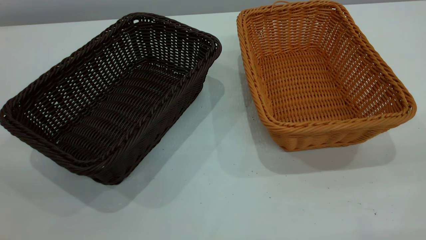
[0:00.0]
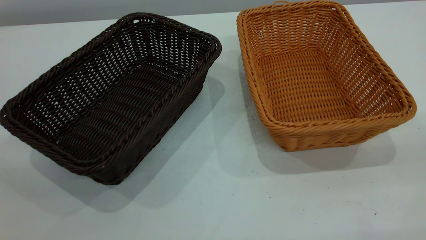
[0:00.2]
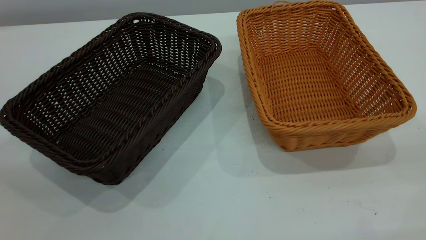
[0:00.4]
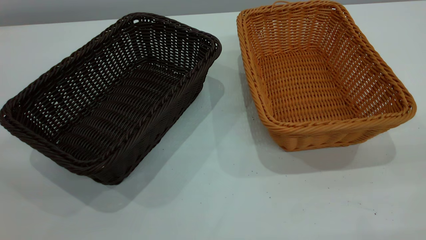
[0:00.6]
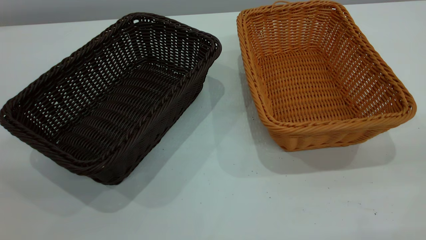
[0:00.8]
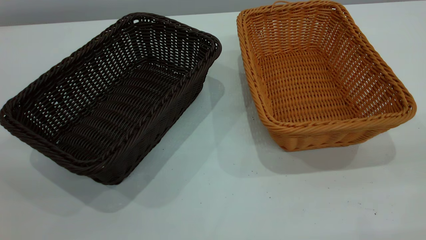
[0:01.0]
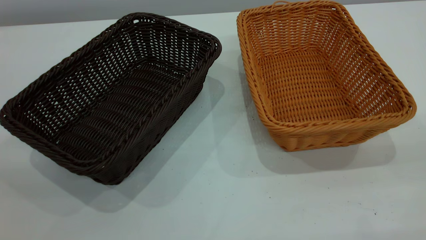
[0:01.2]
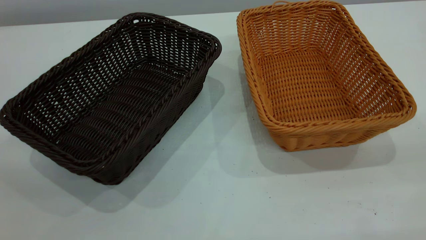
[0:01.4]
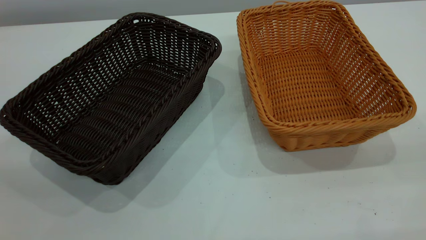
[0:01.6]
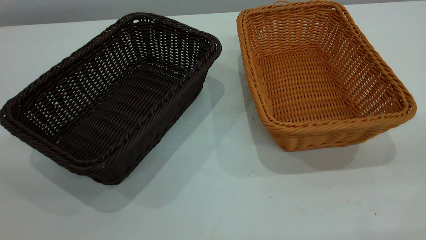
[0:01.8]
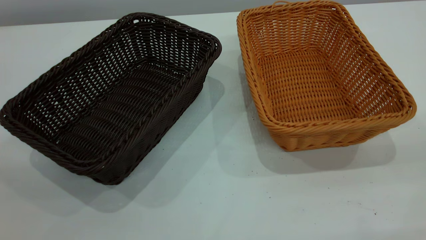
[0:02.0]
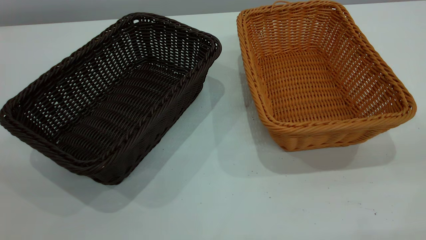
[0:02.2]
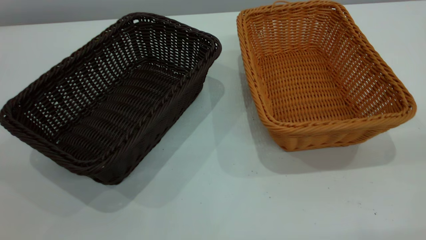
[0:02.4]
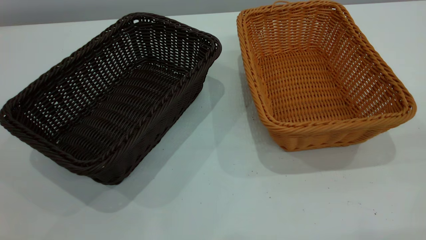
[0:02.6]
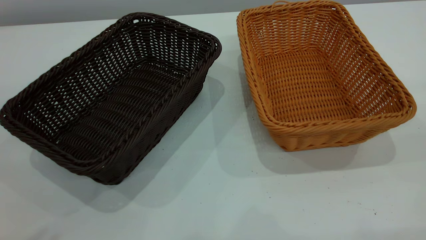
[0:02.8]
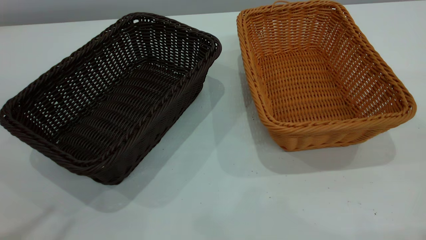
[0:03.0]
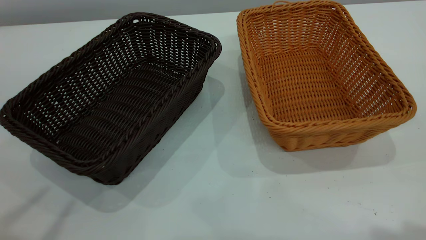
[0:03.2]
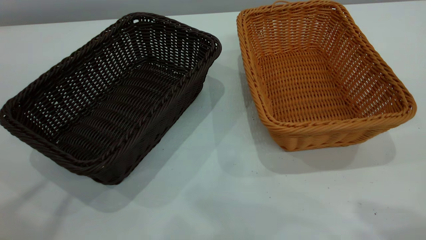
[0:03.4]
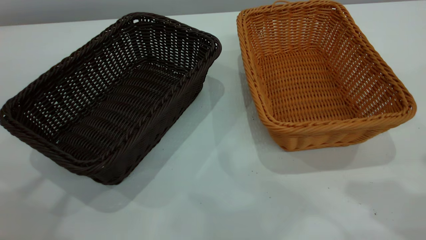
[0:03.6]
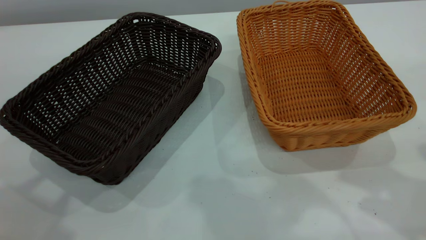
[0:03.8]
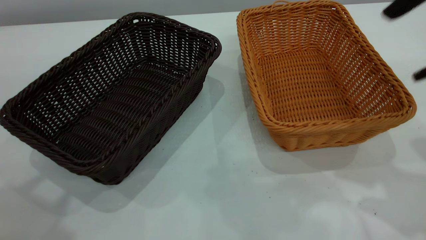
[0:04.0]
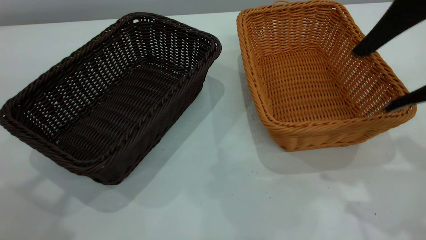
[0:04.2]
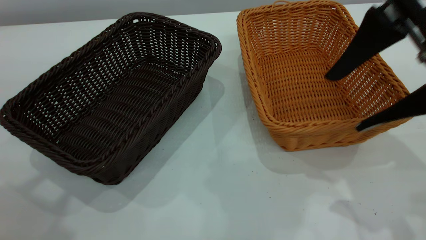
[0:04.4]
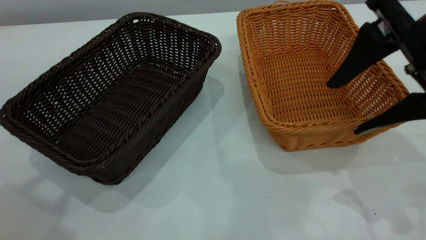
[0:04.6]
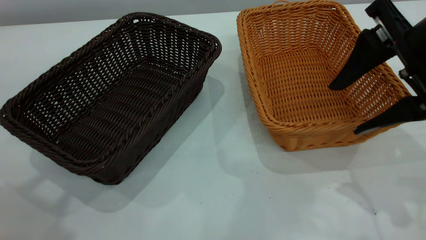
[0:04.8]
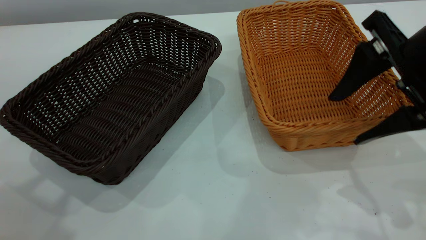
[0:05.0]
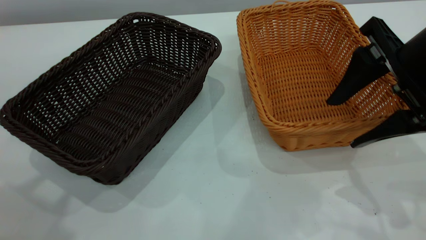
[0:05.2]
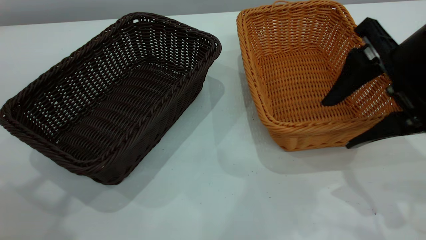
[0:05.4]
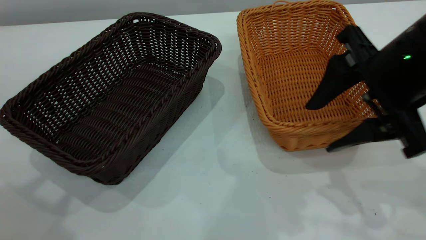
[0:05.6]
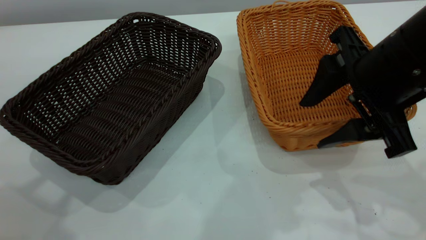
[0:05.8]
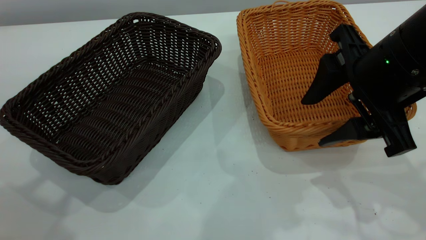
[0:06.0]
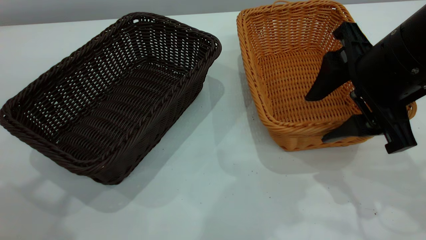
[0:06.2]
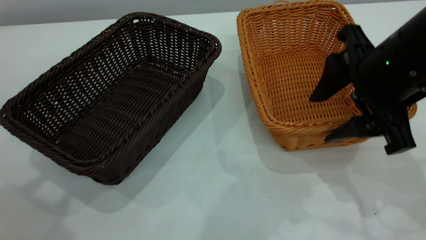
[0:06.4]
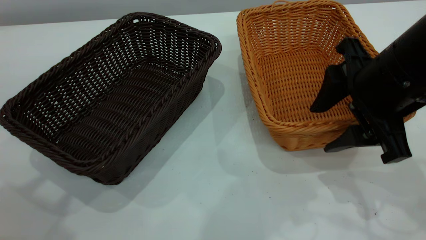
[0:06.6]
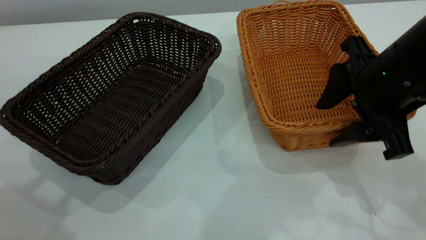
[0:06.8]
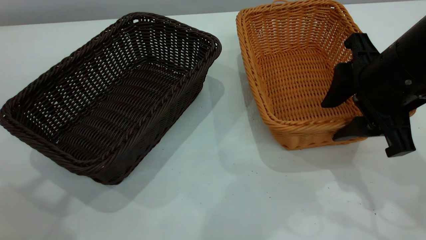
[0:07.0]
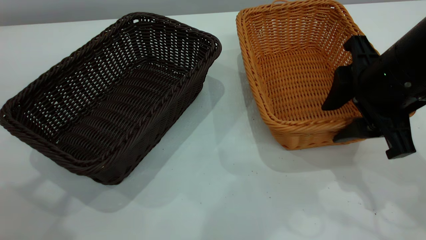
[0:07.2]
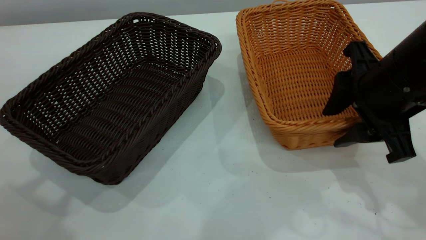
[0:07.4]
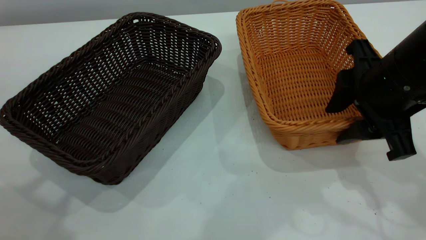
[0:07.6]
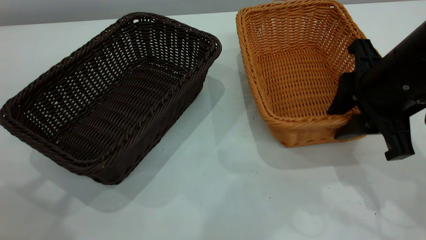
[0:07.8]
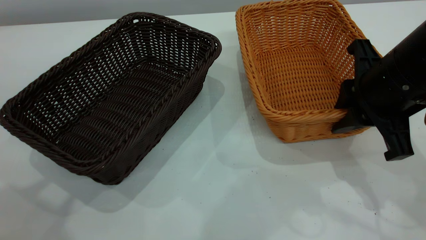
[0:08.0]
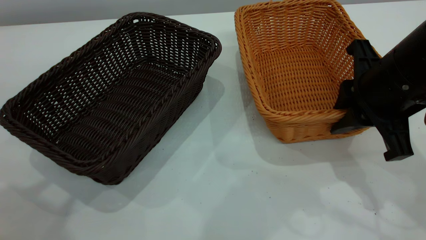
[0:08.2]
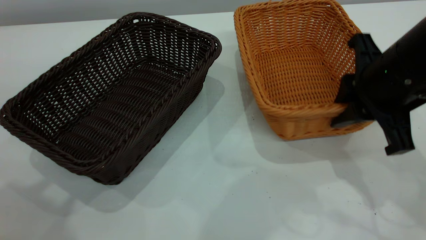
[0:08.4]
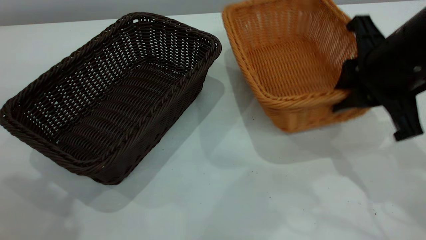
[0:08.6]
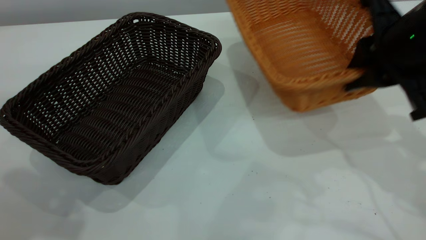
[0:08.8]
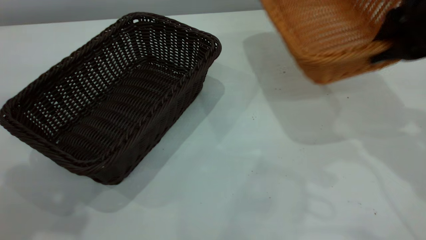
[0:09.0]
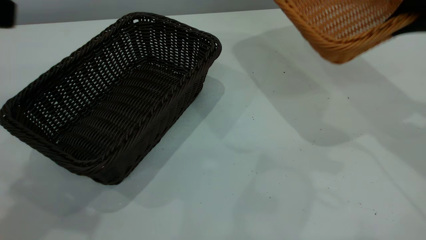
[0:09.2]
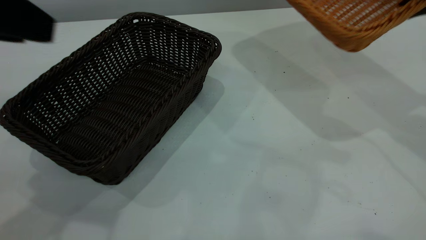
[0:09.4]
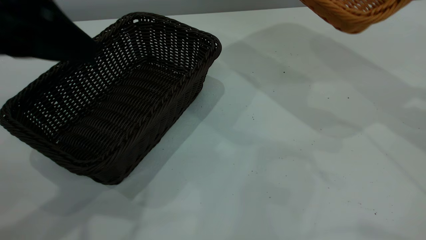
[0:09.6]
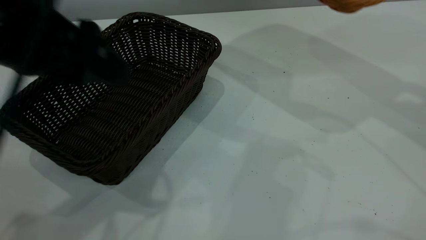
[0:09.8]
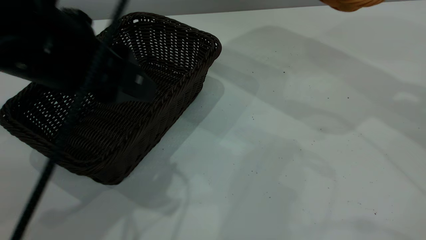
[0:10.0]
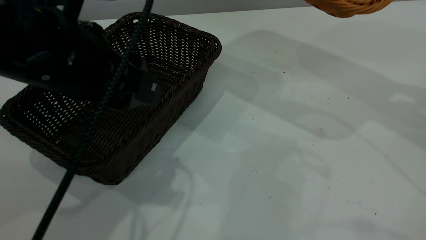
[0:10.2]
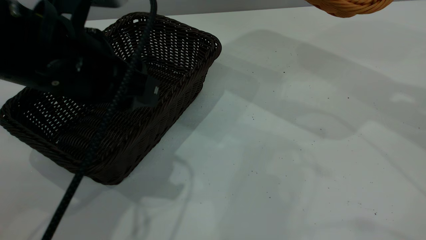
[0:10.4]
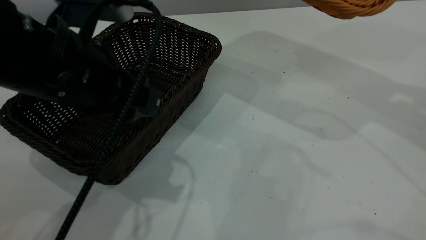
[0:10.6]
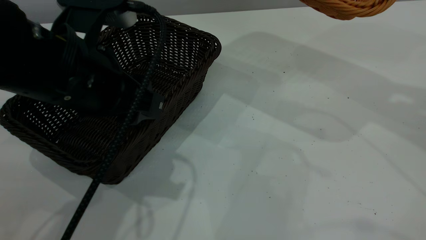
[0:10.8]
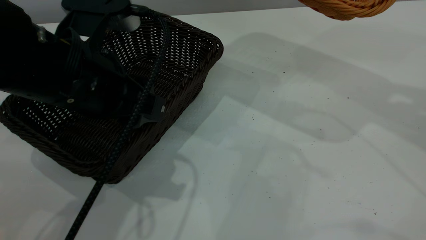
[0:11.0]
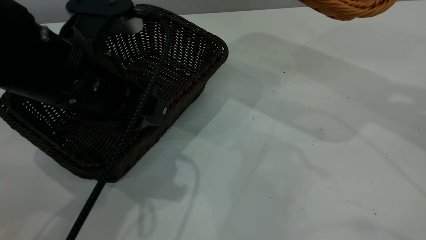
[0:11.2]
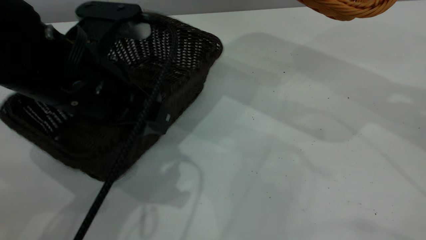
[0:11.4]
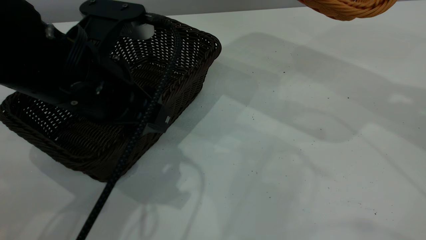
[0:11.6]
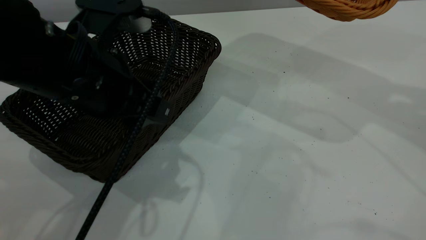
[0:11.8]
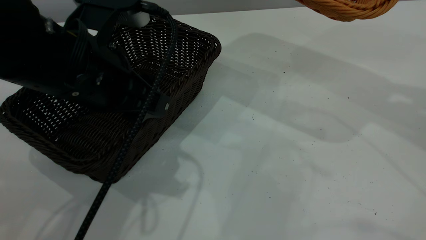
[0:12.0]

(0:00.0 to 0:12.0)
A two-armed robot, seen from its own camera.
Task of the whole recording: the left gripper grasp the black basket and place it in the center of the table, the right gripper grasp the brown basket and place it inside the black one.
Step, 0:00.0 - 0:08.6: Pick up the light basket with the right gripper.
0:00.0 - 0:01.6: Neither gripper changes place.
0:03.0 - 0:04.4: The right gripper heads forward and downward, covering approximately 20 cm.
0:04.4 - 0:06.0: The right gripper moves downward, approximately 5 cm.
0:06.0 - 0:07.6: The grippers make only small movements.
0:07.6 - 0:09.0: The left gripper heads downward, covering about 5 cm. Meanwhile the right gripper is displaced upward by some 5 cm, and closes.
0:09.0 - 0:10.4: The right gripper heads upward, covering some 10 cm. Meanwhile the left gripper goes some 20 cm downward, to the right and forward.
0:10.4 - 0:12.0: The grippers make only small movements.

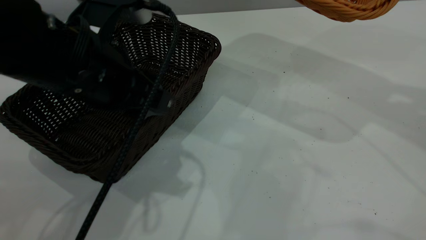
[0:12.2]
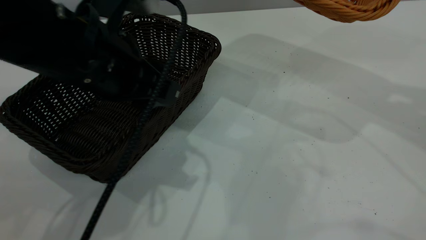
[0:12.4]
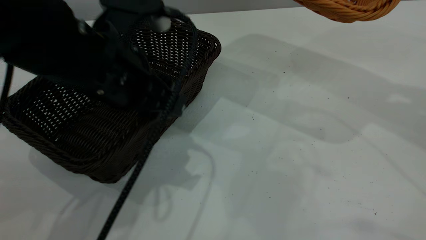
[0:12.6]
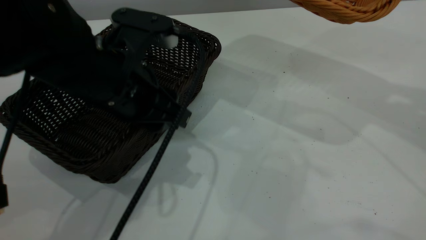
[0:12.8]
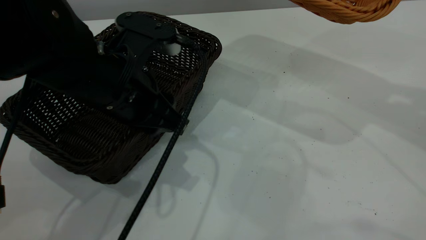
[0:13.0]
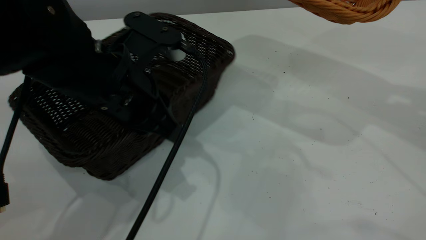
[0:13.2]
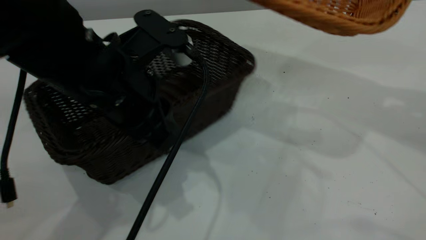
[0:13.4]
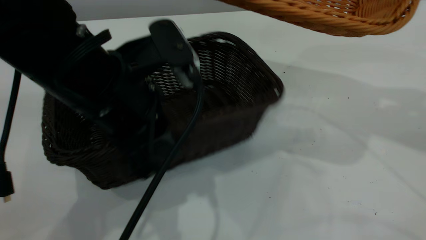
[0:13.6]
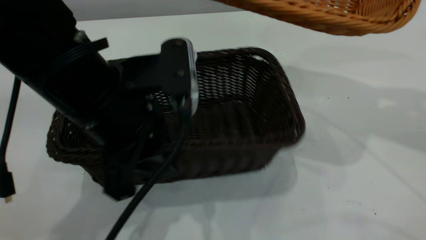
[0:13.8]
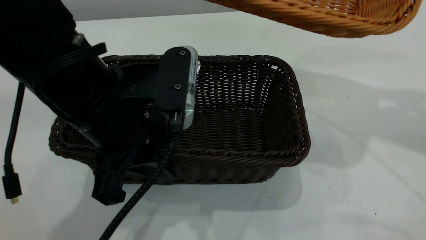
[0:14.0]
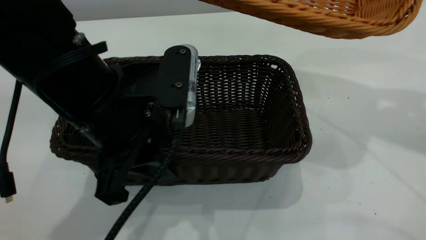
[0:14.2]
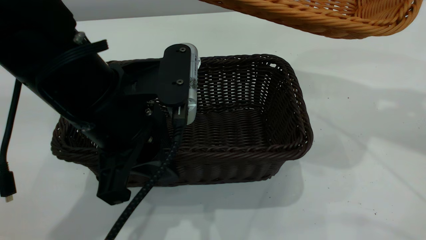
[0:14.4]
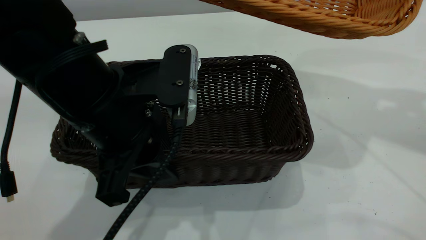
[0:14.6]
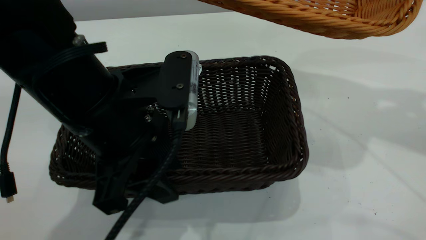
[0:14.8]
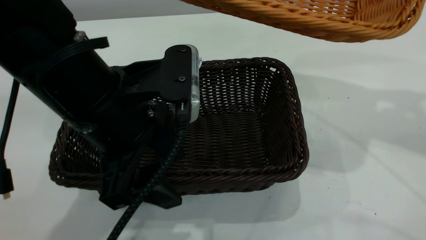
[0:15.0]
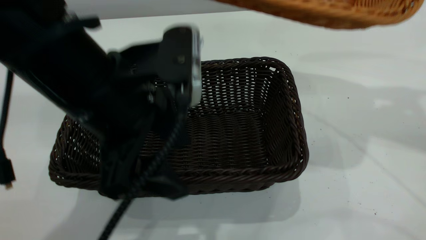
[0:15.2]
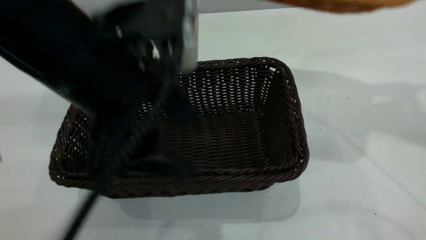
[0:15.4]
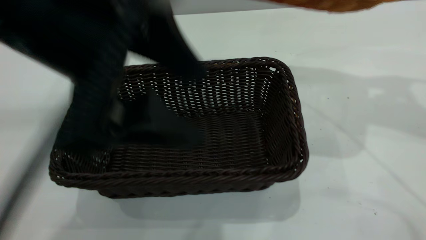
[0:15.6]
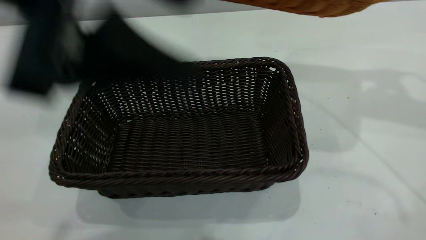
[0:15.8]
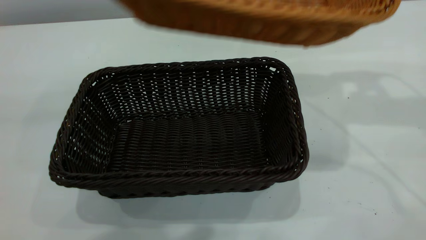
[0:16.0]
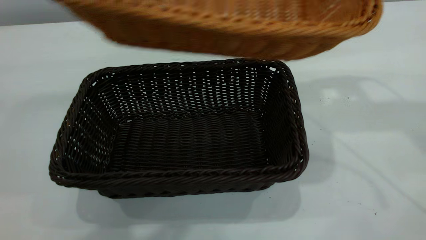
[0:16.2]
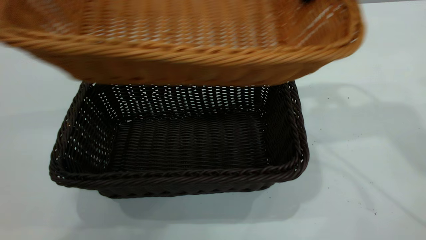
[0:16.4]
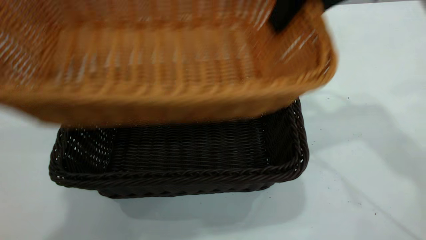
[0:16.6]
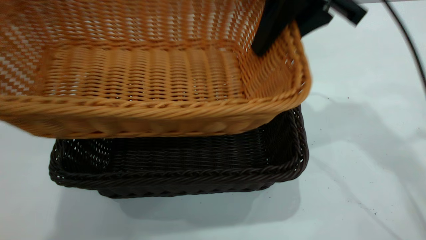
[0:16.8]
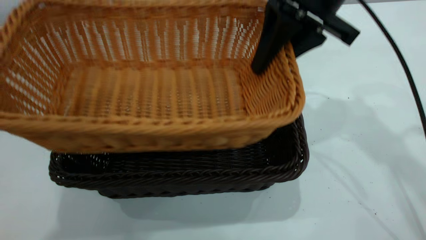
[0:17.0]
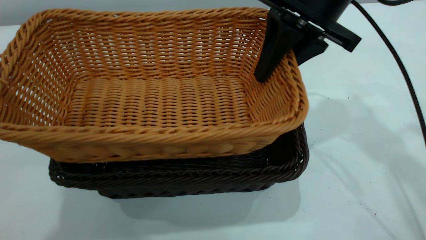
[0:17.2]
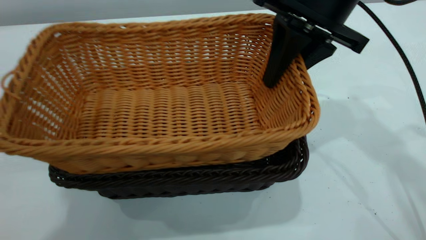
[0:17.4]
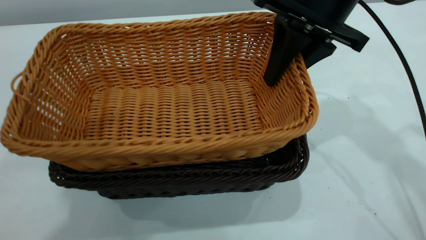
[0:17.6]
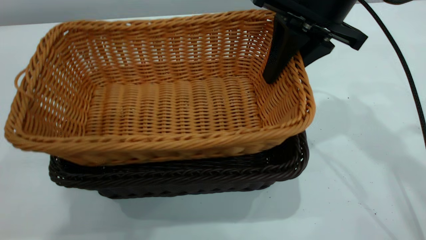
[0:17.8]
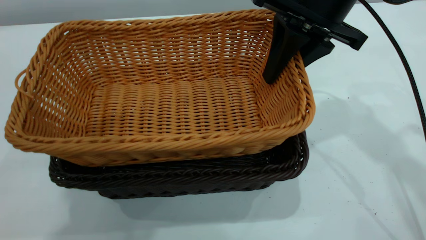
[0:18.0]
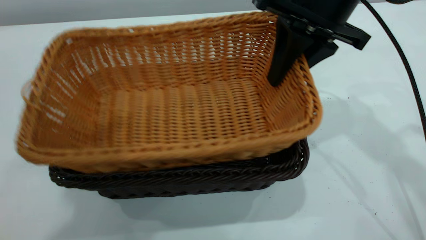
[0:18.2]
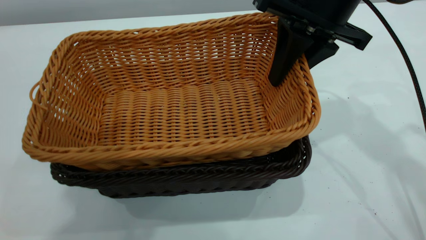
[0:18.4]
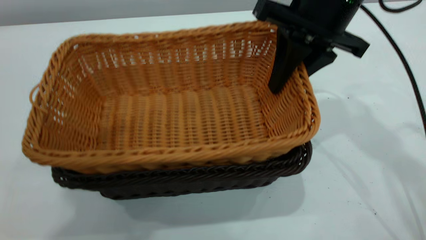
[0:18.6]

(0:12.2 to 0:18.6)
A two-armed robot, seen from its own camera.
Task of the whole recording: the left gripper grasp the black basket and place it in the center of the table, the right gripper grasp the brown basket and place it inside the black one.
Step, 0:12.2 - 0:15.6: Move the dark basket to the center of view.
0:12.2 - 0:13.8: The left gripper closes its fingers.
0:13.8 - 0:15.4: The left gripper goes some 5 cm upward, and opens.
0:15.4 - 0:17.0: The left gripper travels upward by some 20 cm. Meanwhile the right gripper moves to the left and downward, approximately 20 cm.
